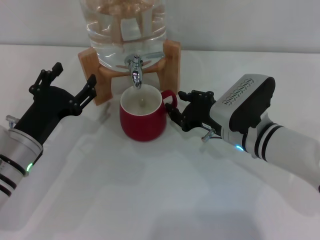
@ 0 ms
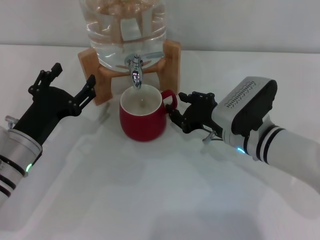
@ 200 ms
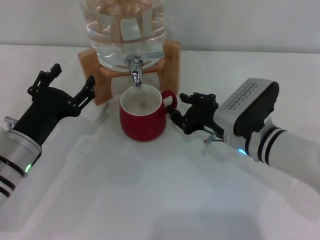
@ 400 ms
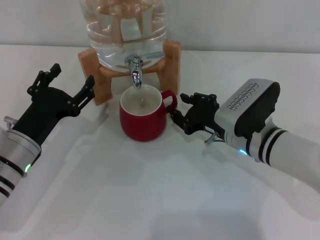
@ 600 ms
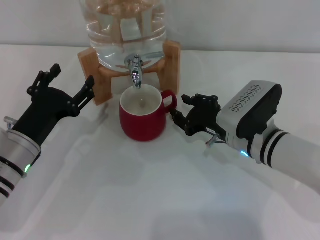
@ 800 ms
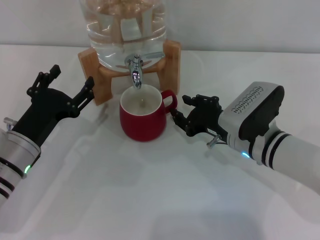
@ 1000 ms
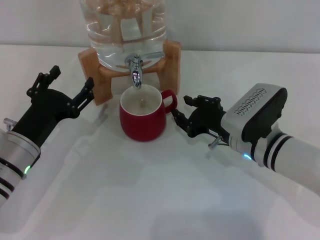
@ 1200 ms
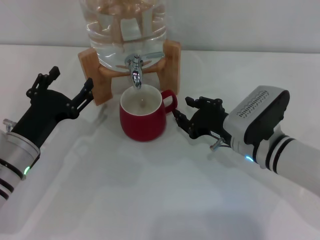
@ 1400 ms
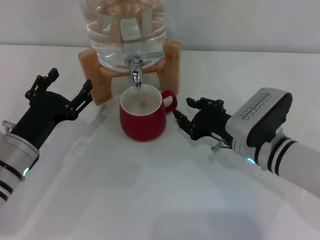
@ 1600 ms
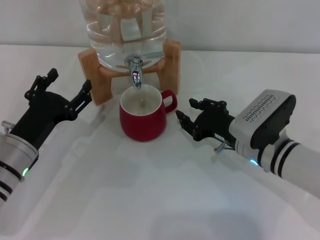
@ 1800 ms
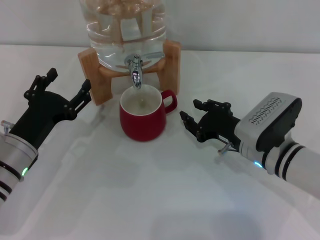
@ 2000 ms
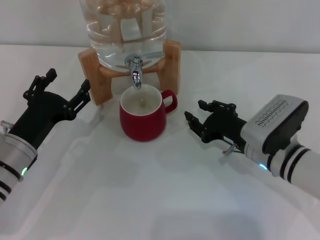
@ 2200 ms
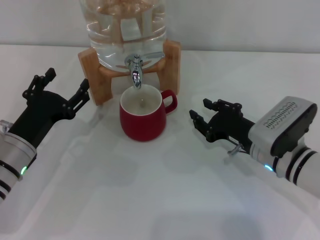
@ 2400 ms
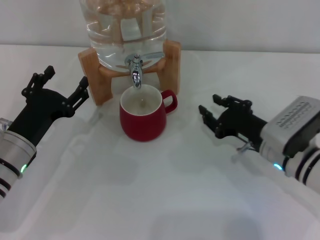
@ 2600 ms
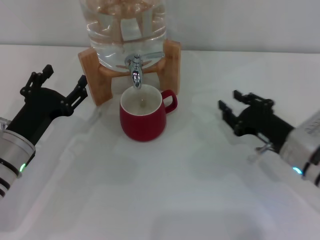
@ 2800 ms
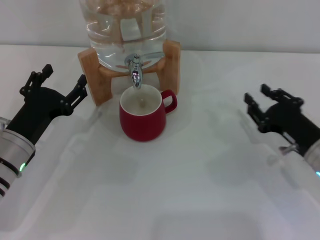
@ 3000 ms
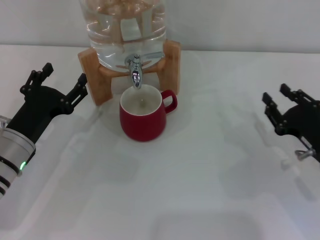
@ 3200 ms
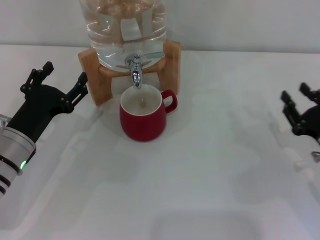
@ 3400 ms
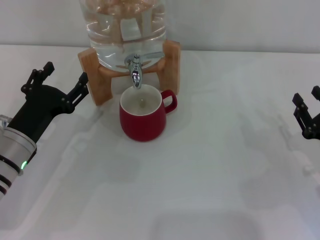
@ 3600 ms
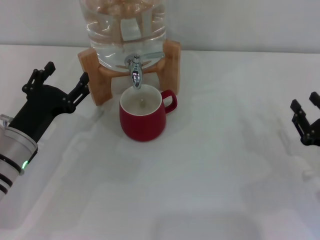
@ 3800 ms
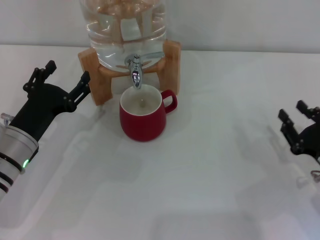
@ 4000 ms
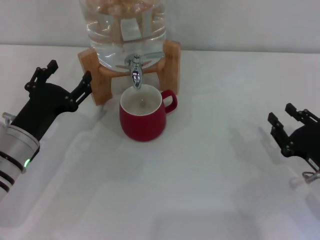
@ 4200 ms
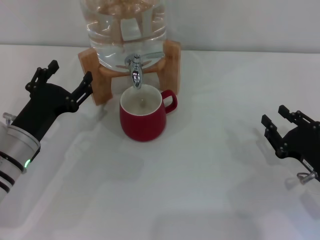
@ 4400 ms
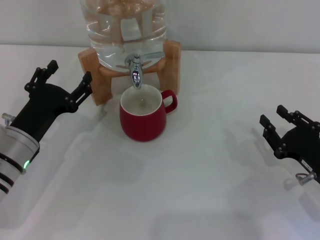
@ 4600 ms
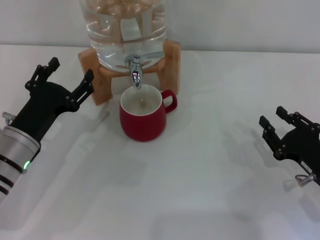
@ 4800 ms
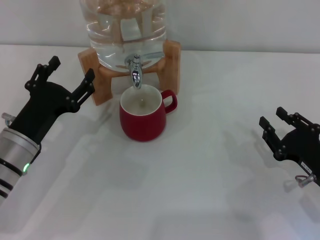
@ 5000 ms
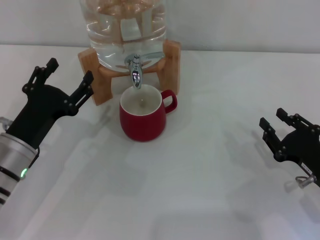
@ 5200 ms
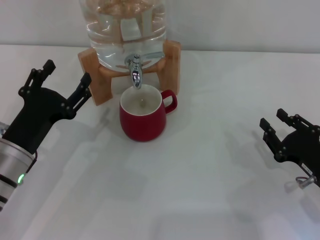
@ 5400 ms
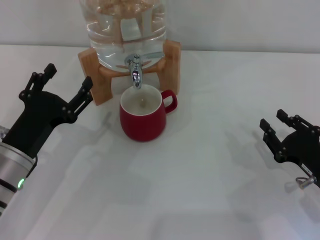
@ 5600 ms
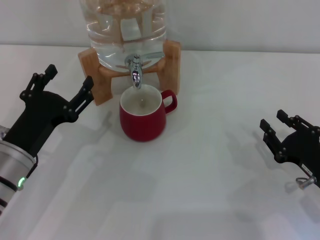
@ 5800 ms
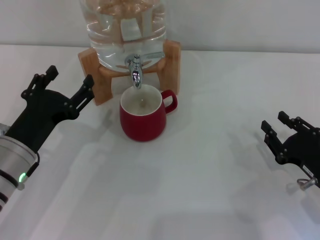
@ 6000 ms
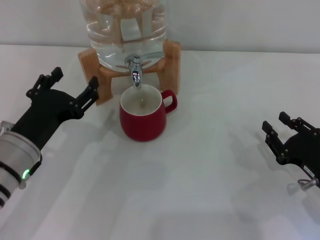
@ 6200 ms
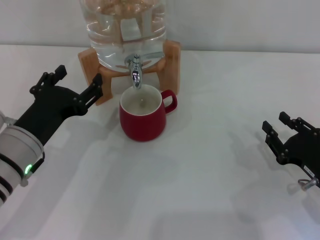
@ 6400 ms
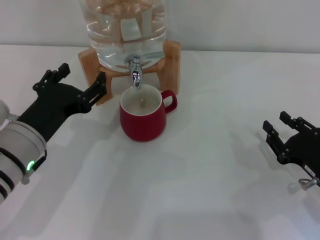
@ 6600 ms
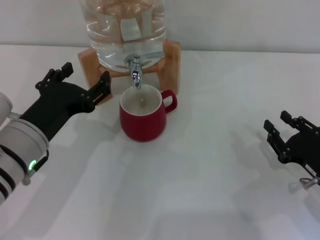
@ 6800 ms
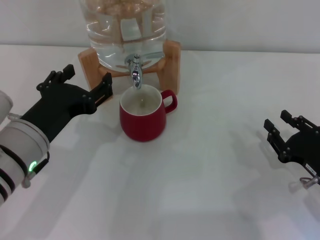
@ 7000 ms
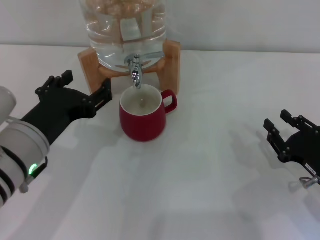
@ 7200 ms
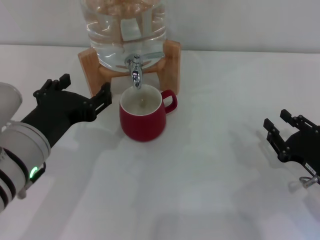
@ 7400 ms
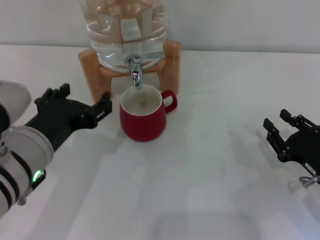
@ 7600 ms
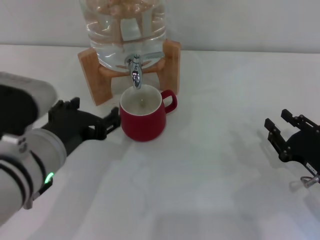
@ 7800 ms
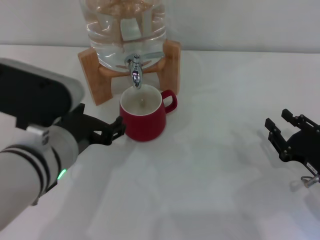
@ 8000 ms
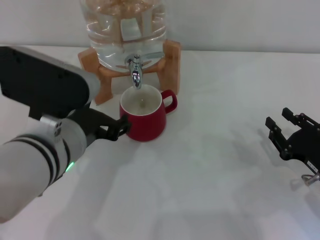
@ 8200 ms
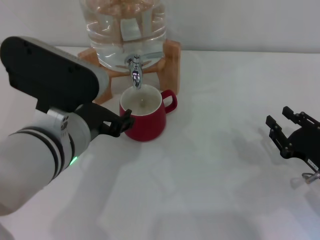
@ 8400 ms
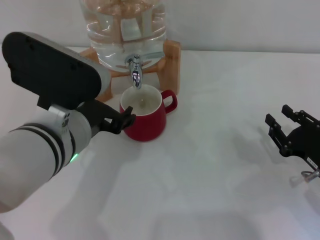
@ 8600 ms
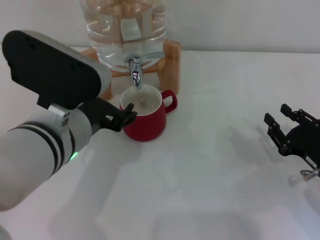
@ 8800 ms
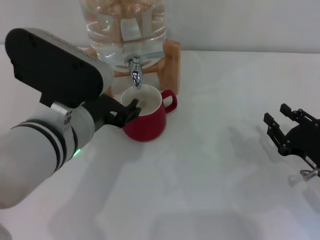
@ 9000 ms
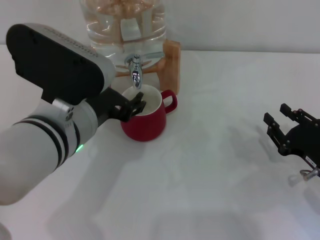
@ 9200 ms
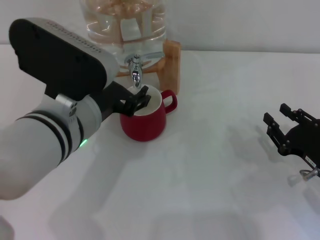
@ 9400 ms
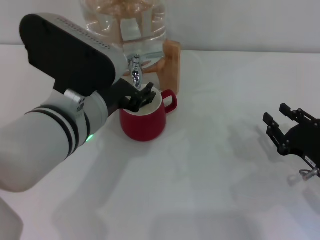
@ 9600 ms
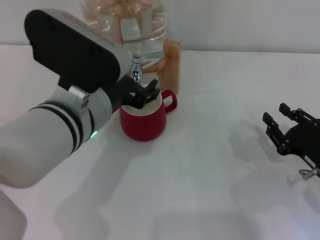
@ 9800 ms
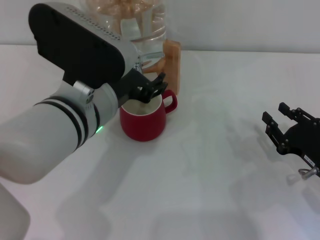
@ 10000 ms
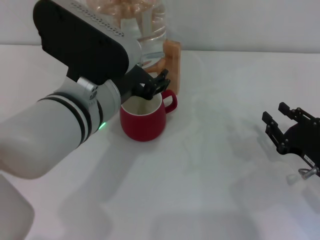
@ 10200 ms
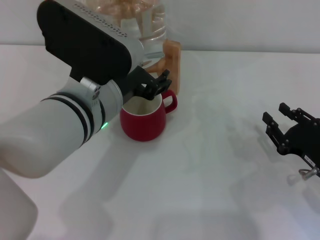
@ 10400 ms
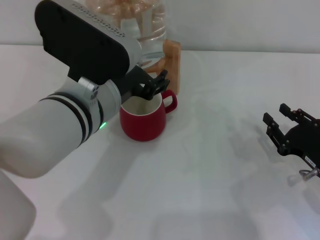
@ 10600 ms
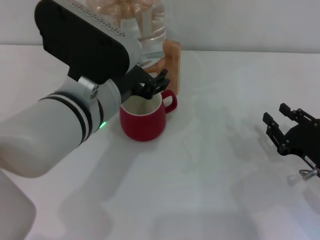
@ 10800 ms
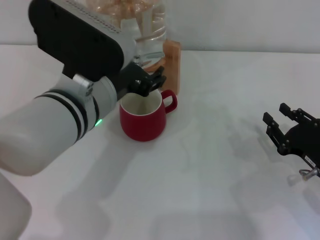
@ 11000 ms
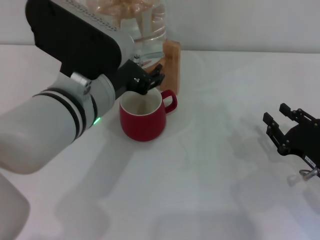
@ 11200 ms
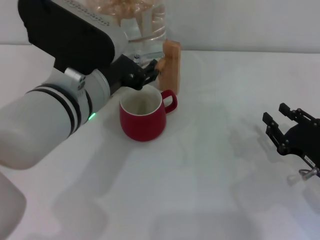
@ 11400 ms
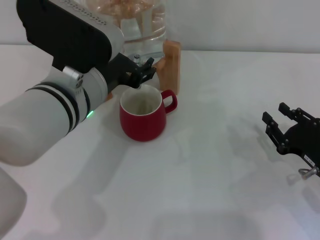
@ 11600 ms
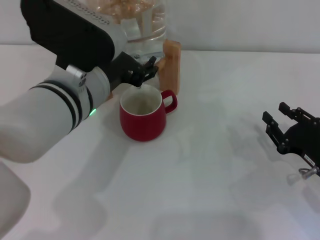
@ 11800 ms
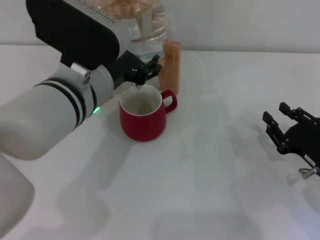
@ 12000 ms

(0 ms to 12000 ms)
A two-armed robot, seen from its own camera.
Task of the whole recording: the right gripper pick up the red cup and place it horizontally under the faucet, the left gripper turn on the faucet to fill the cup, and then turn off the faucet.
0 ms - 1600 ms: The grippers make only small movements.
1600 ms - 3000 ms: The right gripper goes roughly 10 cm to the right.
3000 ms - 4400 ms: The right gripper moves approximately 5 cm.
4400 ms - 6000 ms: The left gripper ends up approximately 5 cm from where it was.
6000 ms - 7600 ms: The left gripper travels upward and to the right by about 10 cm.
7600 ms - 9000 ms: The left gripper changes place by approximately 5 cm.
9000 ms - 12000 ms: There are only small adjustments of the grippers.

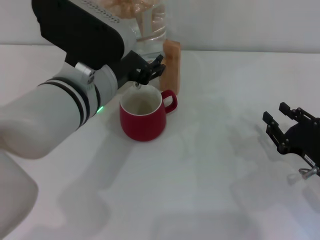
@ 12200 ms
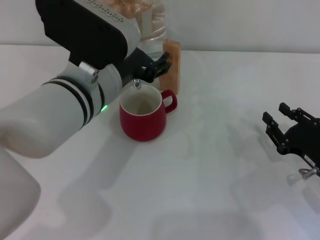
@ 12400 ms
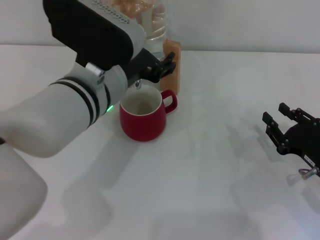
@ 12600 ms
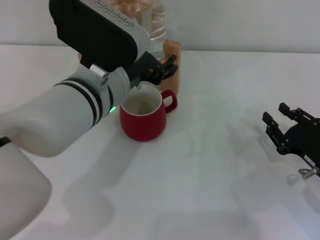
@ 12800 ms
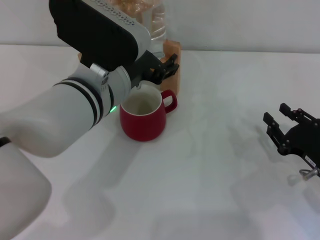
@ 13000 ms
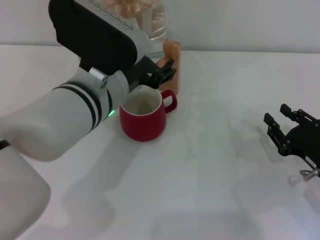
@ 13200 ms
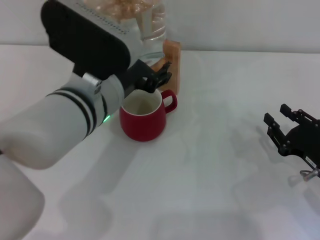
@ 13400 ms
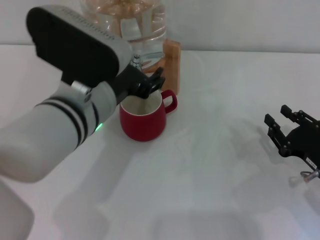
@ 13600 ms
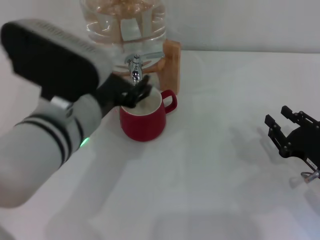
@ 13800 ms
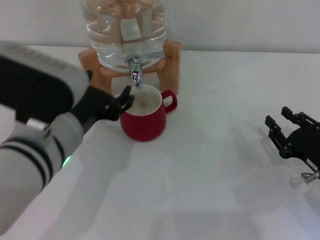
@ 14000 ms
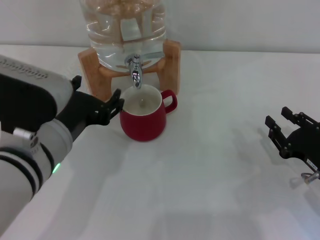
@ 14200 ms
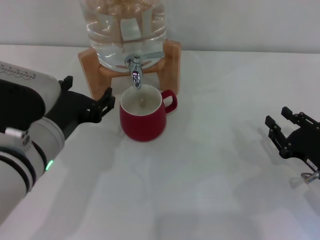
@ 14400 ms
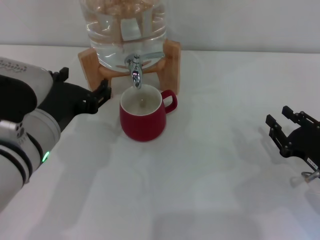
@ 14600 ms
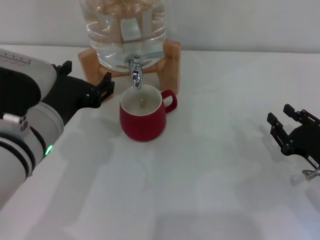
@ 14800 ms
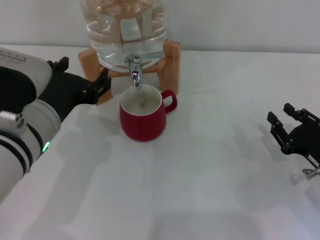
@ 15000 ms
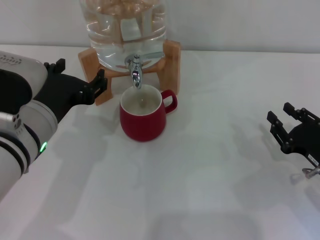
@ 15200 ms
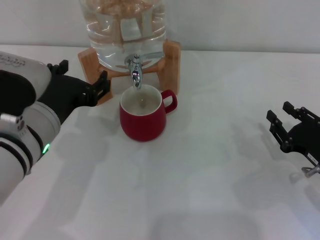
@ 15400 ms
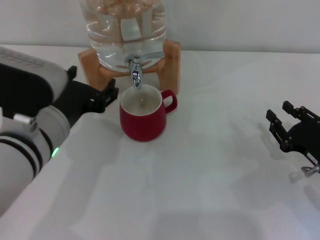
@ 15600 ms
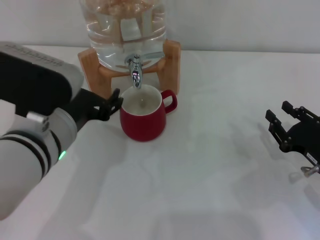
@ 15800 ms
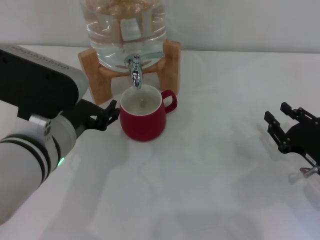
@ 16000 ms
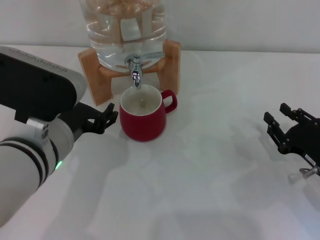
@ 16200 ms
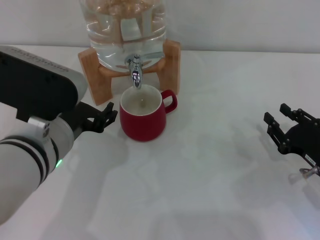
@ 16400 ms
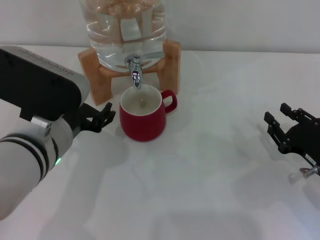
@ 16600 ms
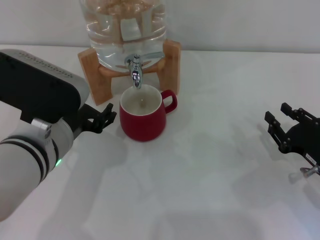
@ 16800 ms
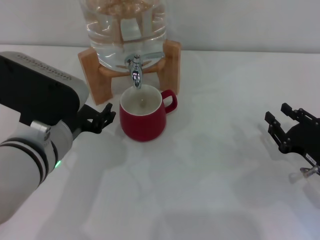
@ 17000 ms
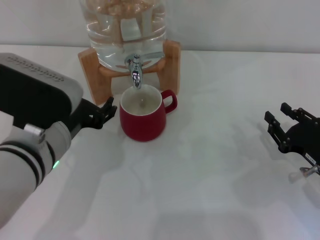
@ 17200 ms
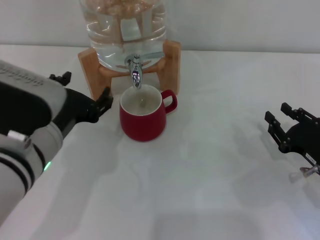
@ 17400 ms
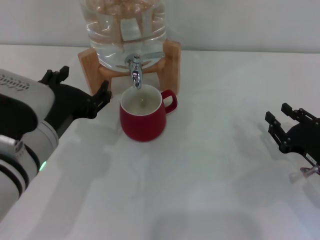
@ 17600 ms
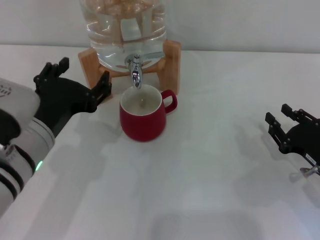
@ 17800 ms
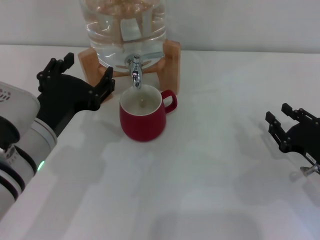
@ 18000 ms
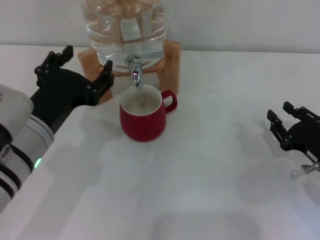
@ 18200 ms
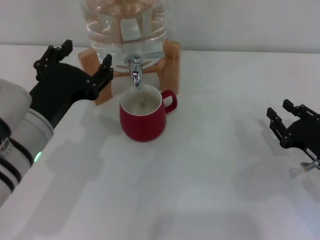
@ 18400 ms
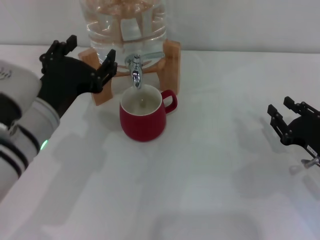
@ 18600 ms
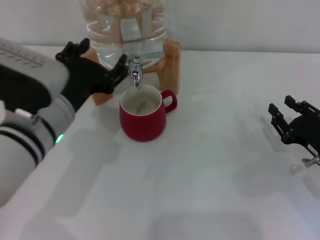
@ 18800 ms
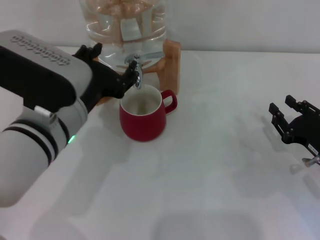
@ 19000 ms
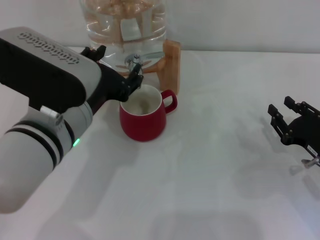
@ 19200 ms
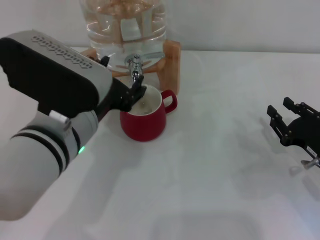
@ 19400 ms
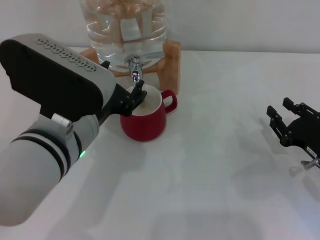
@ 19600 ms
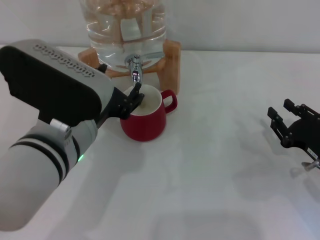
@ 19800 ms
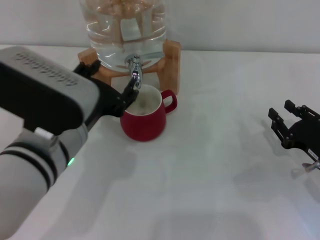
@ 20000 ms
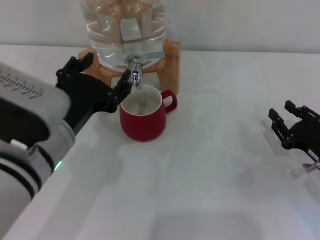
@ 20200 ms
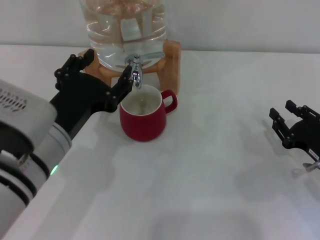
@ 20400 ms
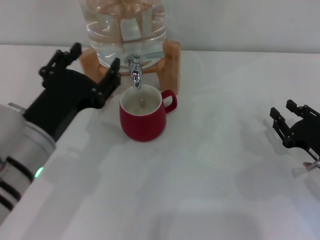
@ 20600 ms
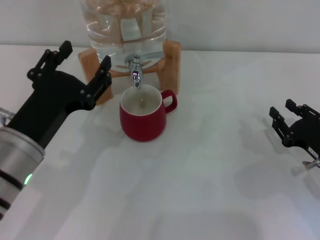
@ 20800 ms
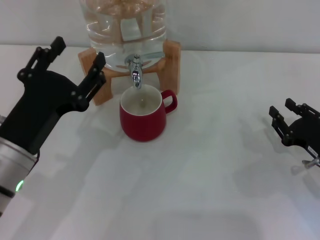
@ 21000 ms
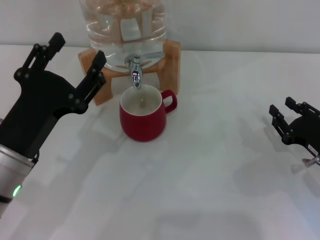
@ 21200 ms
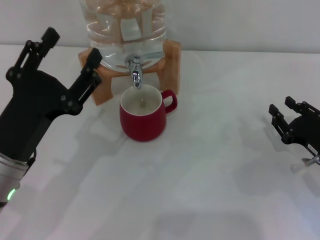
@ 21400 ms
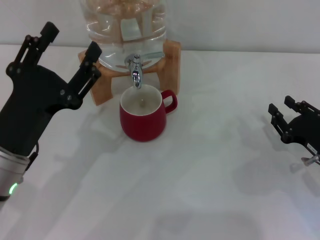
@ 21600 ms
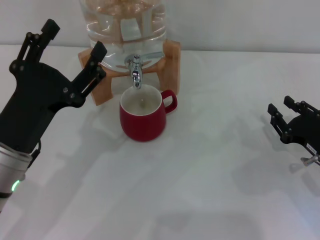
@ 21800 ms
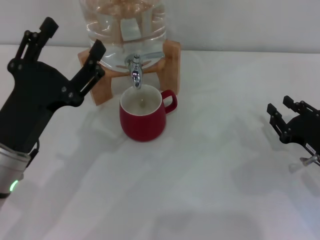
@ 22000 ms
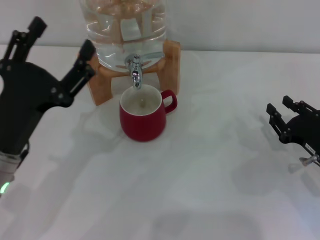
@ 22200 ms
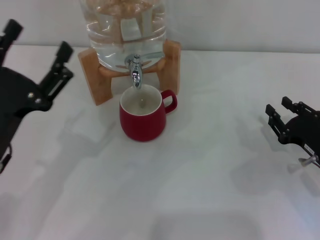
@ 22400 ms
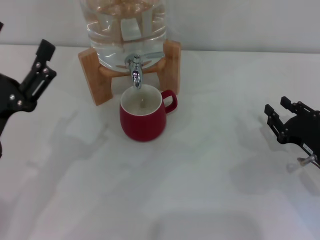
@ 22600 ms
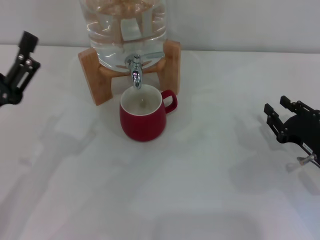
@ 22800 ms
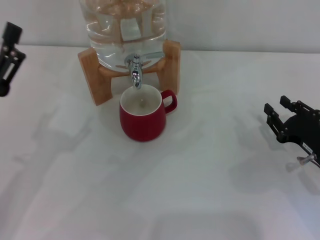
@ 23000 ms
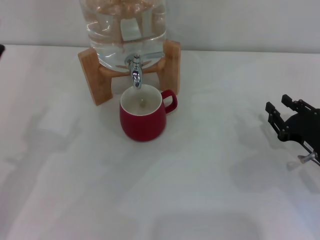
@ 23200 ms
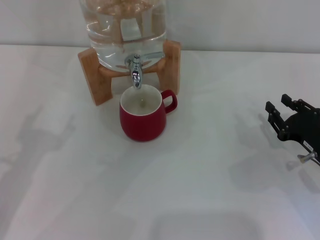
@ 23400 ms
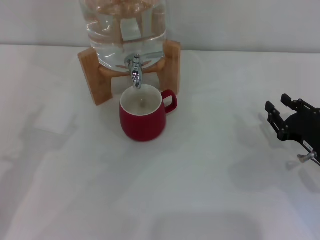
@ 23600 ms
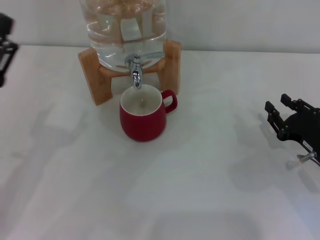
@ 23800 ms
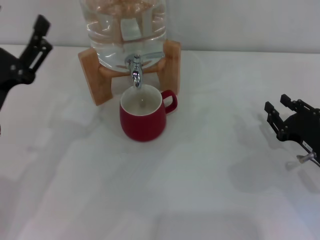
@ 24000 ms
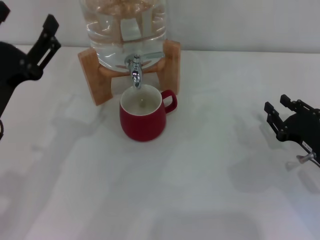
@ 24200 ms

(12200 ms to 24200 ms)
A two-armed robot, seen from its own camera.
Task of the whole recording: the right gripper pick up the red cup and place it horizontally under the faucet, the left gripper turn on the faucet to fill the cup, and then turn off the faucet.
13800 ms - 15200 ms: The left gripper goes approximately 5 cm to the left.
15200 ms - 16600 ms: The grippers move only a little.
18200 ms - 19800 ms: The left gripper shifts roughly 5 cm to the right.
19800 ms - 21200 ms: The left gripper travels to the left by roughly 10 cm.
21200 ms - 22600 ms: The grippers make only small movements.
22600 ms - 24200 ms: The grippers move only a little.
